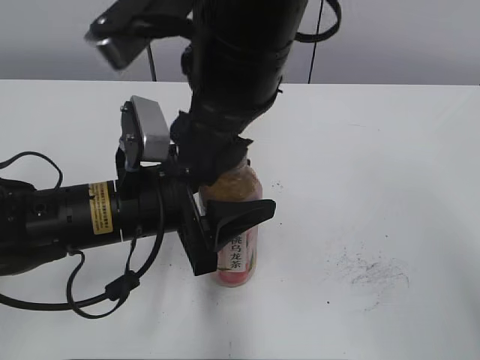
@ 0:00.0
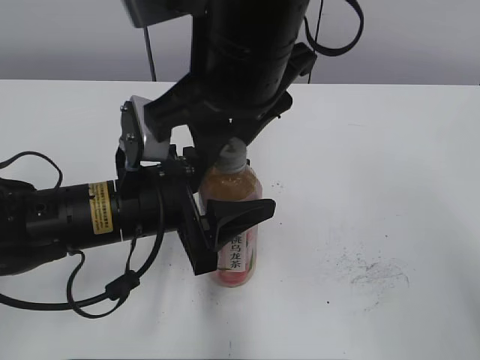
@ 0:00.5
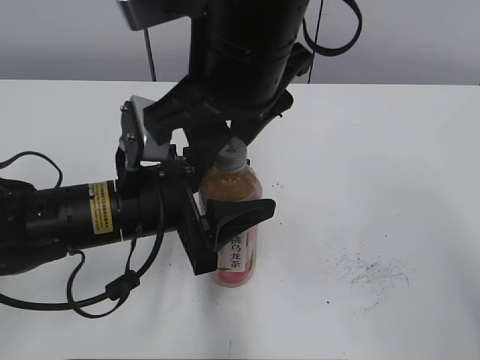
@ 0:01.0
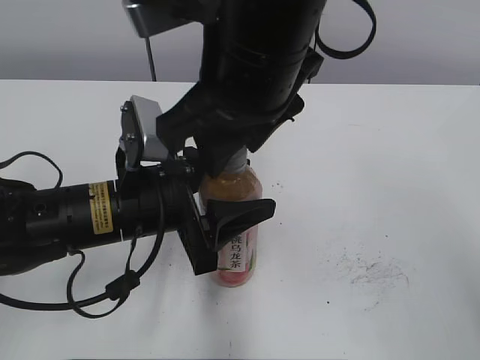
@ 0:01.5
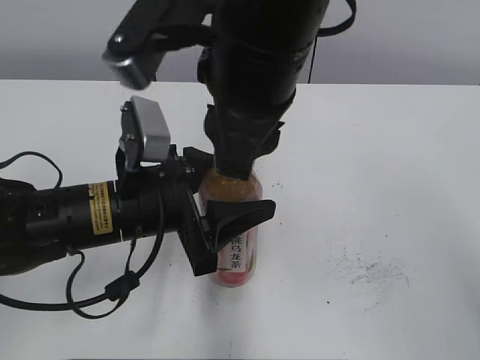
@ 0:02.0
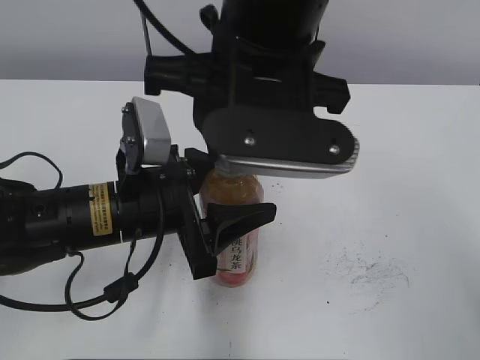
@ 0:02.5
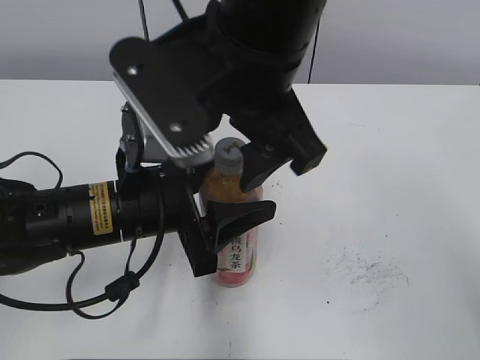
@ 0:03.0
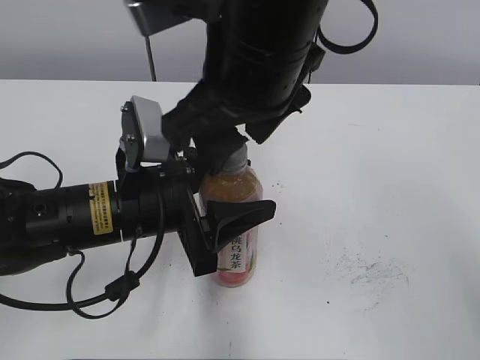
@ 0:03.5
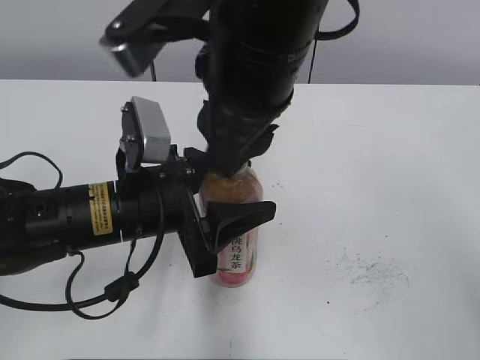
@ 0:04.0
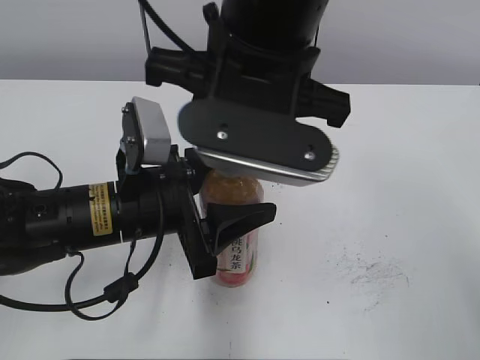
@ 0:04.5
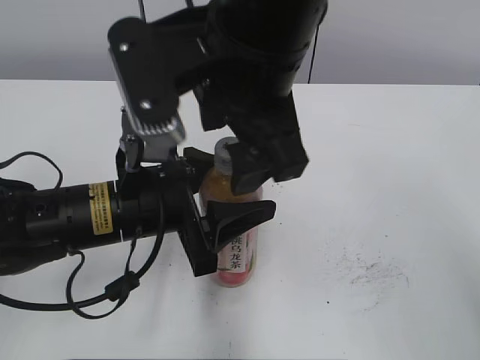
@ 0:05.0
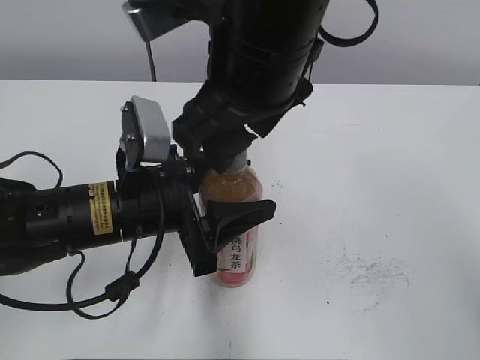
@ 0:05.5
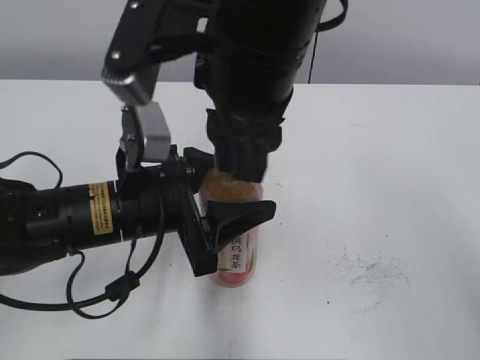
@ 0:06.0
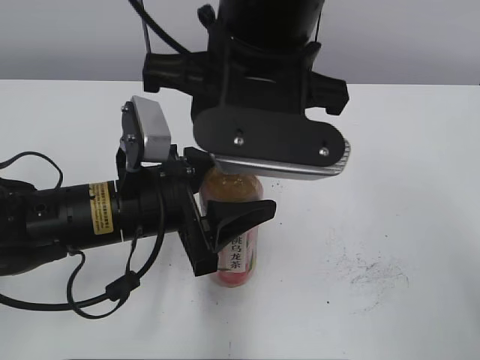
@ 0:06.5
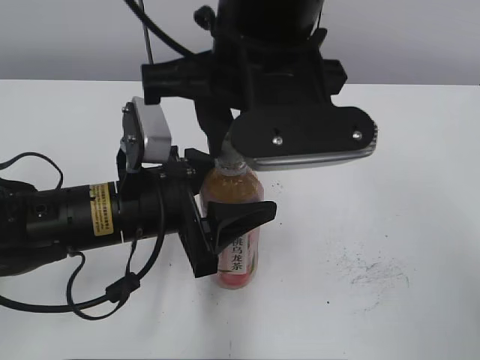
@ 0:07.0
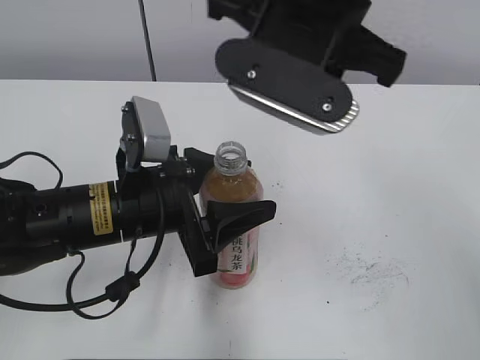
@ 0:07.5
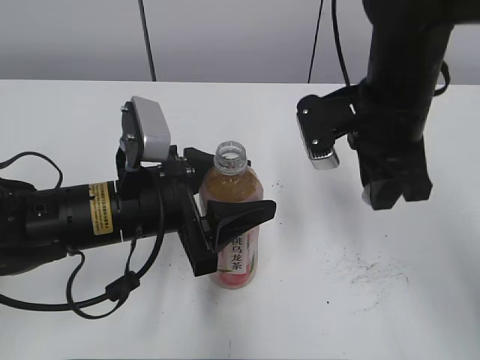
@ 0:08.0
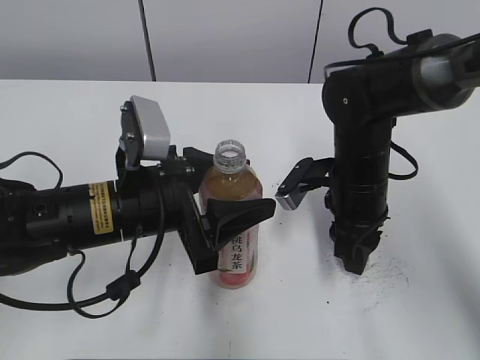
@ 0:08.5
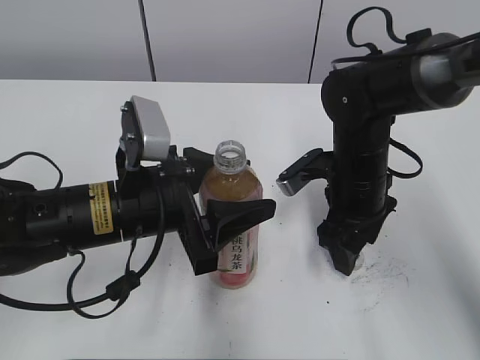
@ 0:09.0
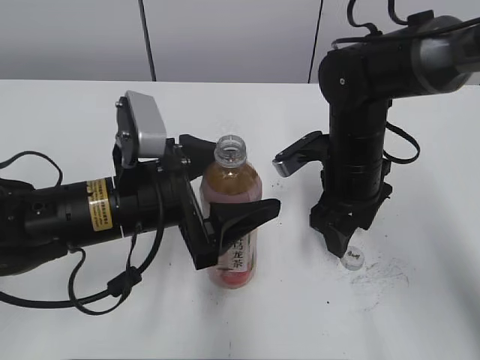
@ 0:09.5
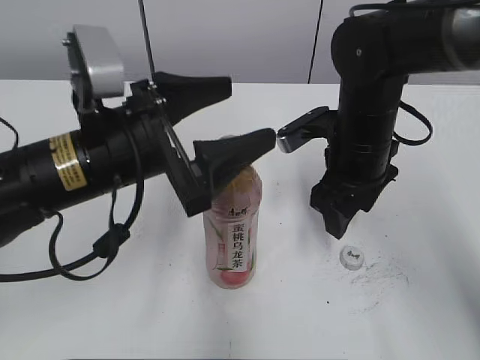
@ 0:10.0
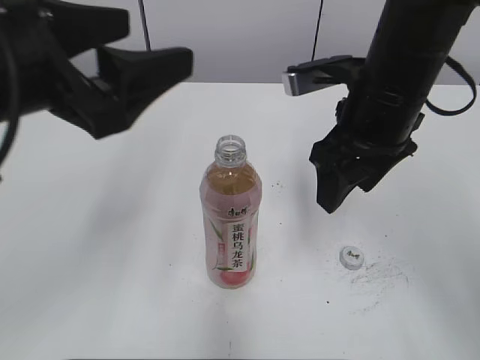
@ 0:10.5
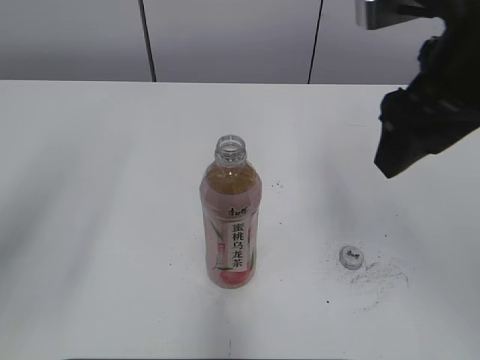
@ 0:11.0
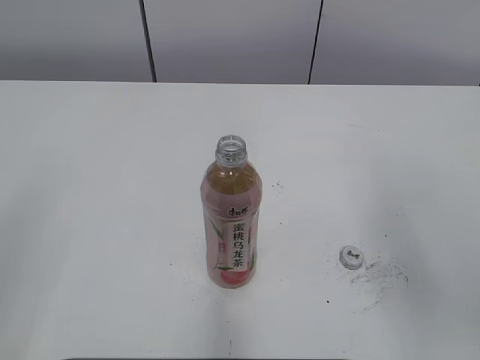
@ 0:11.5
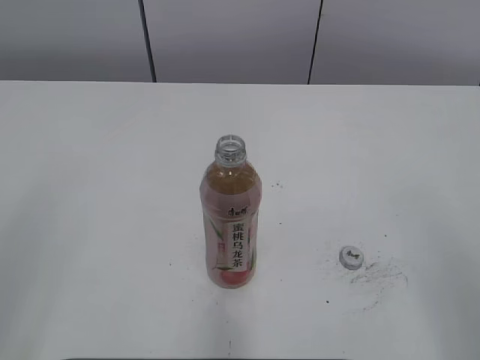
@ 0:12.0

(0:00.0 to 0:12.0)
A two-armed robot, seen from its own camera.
Step, 0:07.5 - 0:08.5: Place the bottle cap on the right.
0:00.0 - 0:02.0: The right gripper closes up.
0:02.0 - 0:04.0: The right gripper opens, then closes again.
0:04.0 - 0:06.0: The right gripper opens and closes again.
0:06.0 - 0:08.0: The right gripper goes about 15 cm to the right, downward and forward.
0:08.0 - 0:10.0: The right gripper is displaced downward by about 5 cm, and opens up. The left gripper shifts some 5 cm upward, and opens up.
0:10.0 - 0:12.0: The right gripper is displaced backward, to the right and upward by about 35 cm; the left gripper travels backward, to the left and upward by approximately 30 cm.

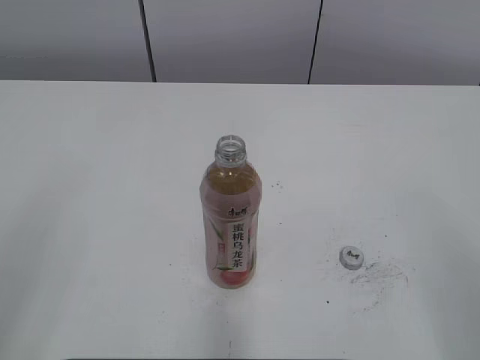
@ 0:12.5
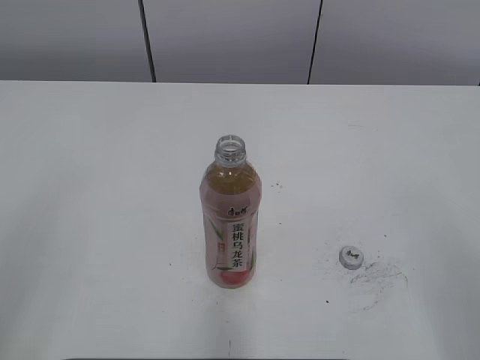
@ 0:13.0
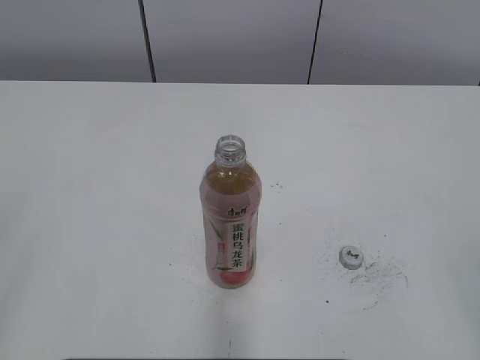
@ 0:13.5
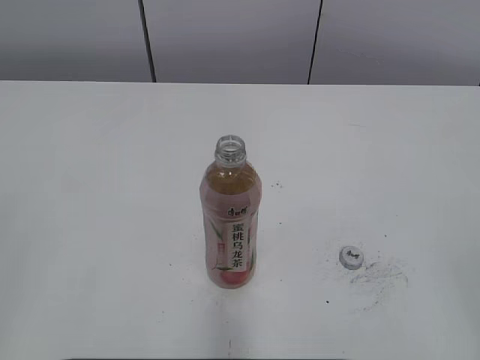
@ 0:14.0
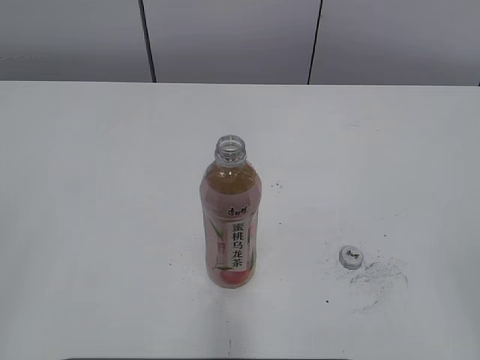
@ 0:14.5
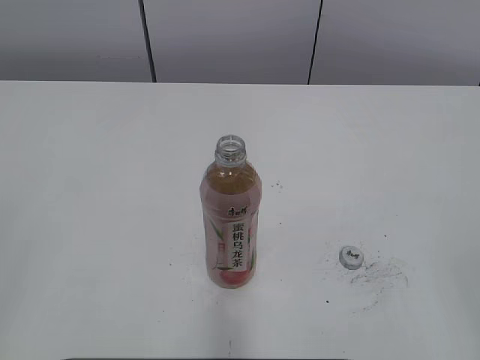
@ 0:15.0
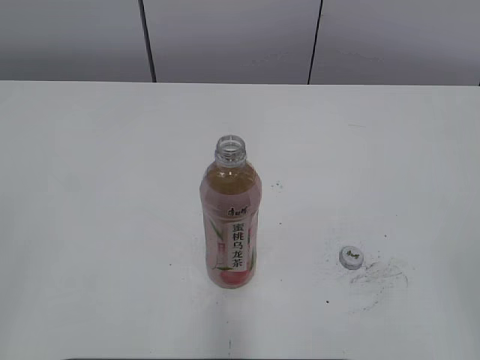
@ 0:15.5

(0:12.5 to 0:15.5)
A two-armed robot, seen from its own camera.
0:14.0 - 0:15.5: Both grippers stay about where they are.

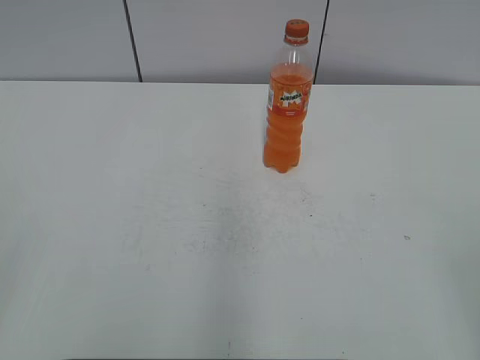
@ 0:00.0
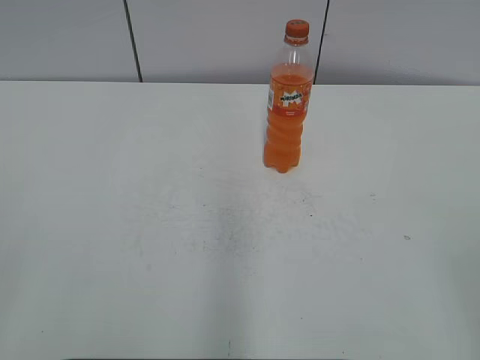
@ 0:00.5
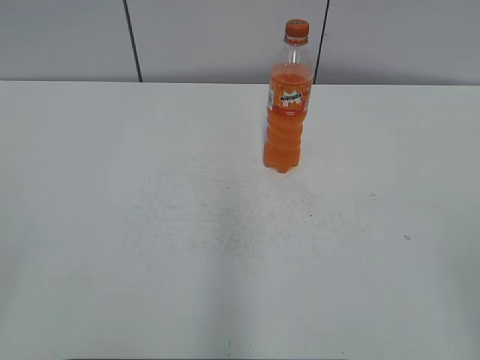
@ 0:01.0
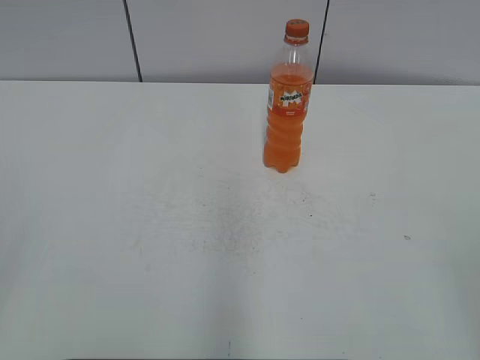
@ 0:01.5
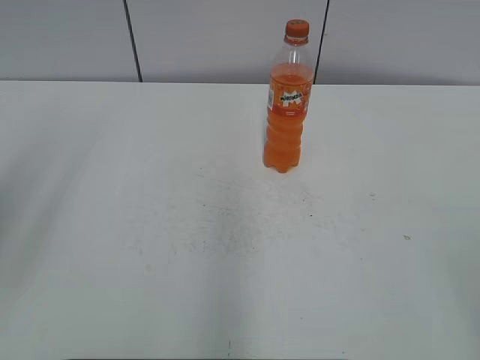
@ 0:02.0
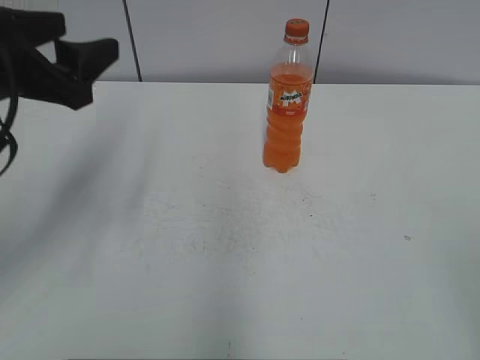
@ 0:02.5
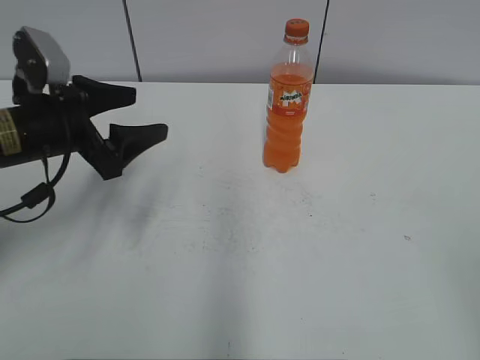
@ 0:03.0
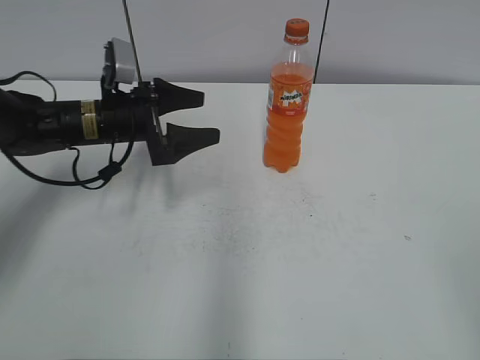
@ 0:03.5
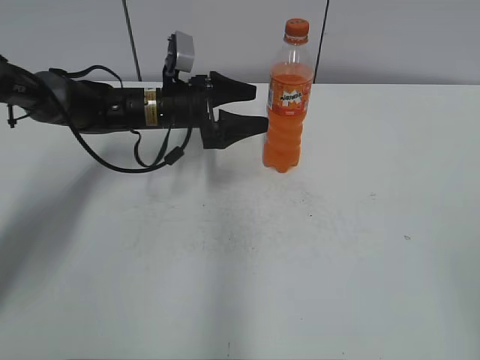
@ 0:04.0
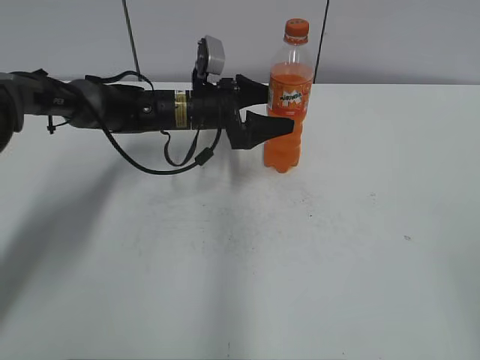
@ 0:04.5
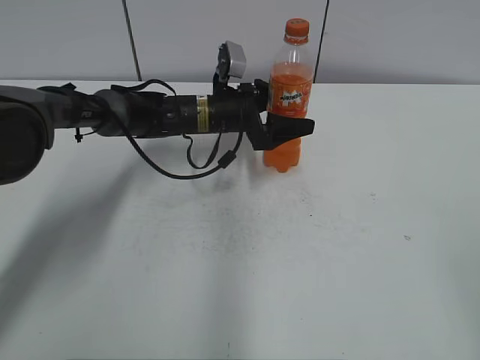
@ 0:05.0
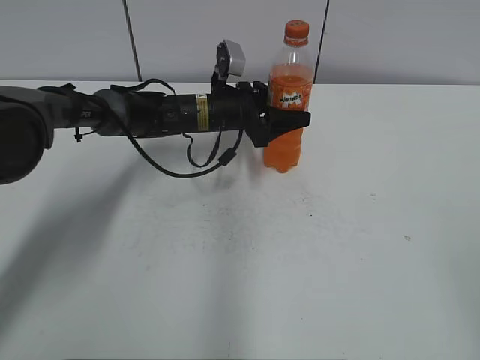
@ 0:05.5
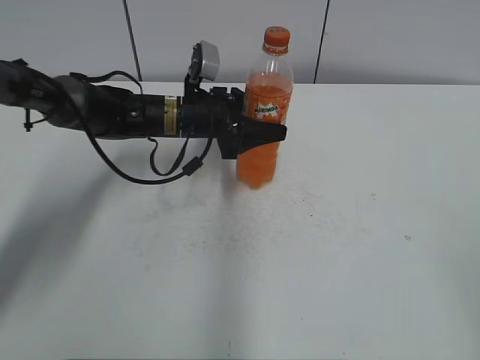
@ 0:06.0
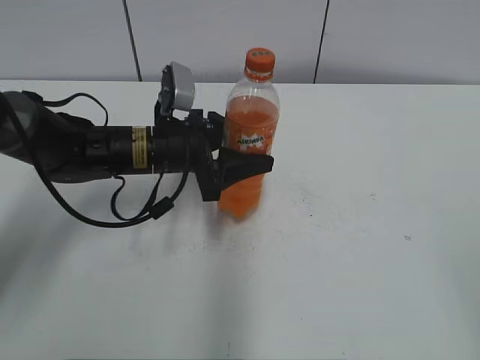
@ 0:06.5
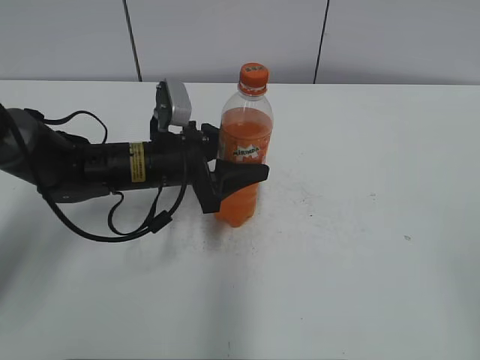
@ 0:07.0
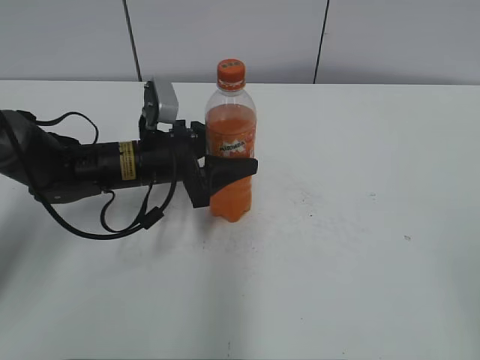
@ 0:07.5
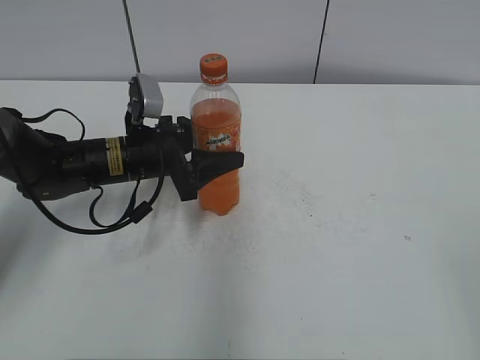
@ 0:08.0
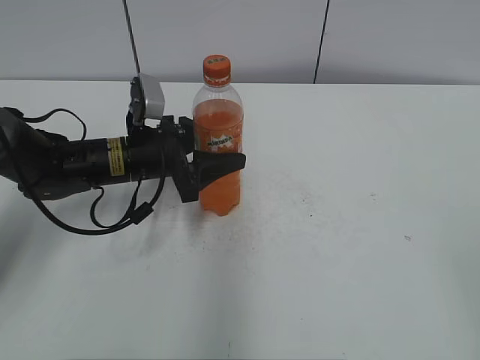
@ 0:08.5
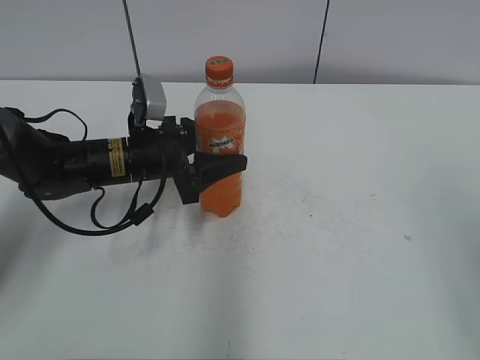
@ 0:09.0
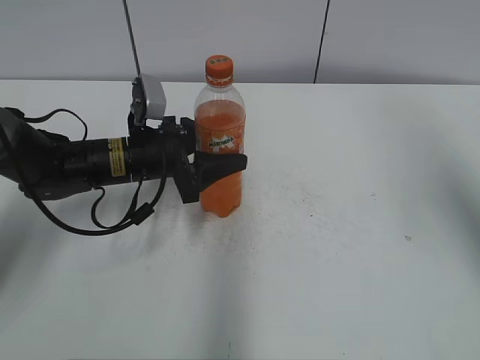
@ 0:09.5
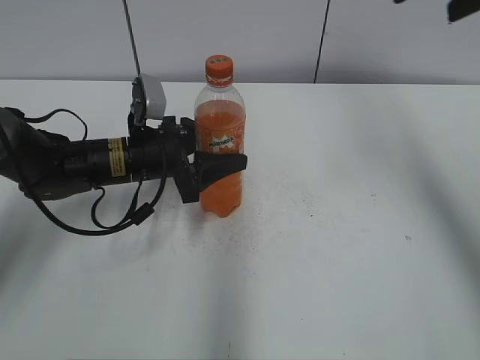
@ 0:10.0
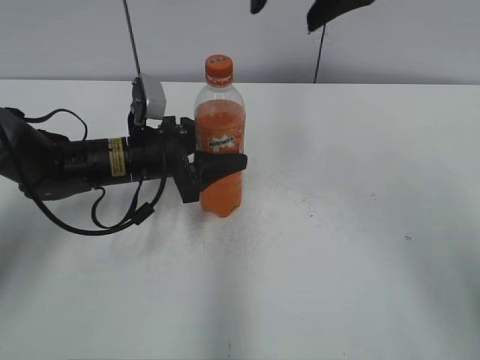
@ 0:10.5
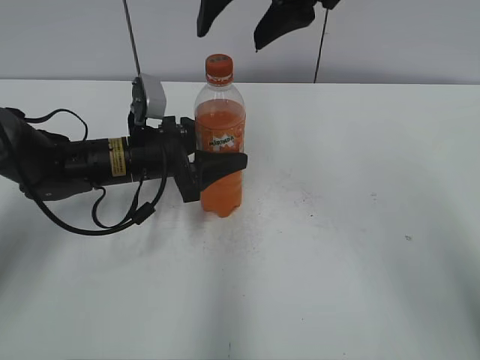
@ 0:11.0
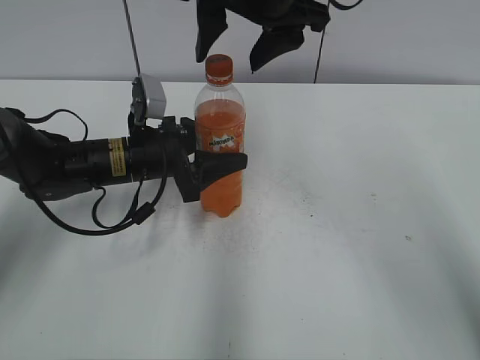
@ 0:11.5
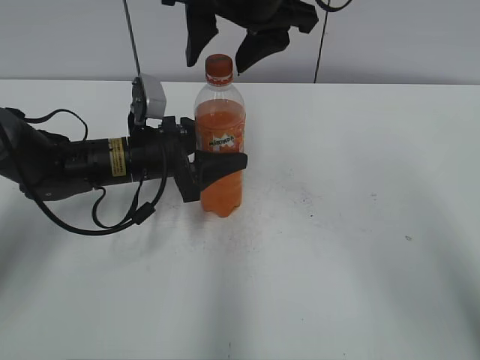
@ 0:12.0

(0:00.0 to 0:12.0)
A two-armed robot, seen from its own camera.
Step, 0:00.0 - 0:05.0: Grab the Mirinda with the left hand.
Step, 0:05.5 - 0:08.5: Move the Mirinda from right to left.
0:02.0 - 0:04.0: The left gripper travels forward, downward and to the right by about 50 cm, and opens.
0:04.0 - 0:06.0: The left gripper closes its fingers.
0:06.0 - 0:08.0: The left gripper travels backward and to the left by approximately 10 cm.
0:08.0 - 0:10.0: The right gripper heads forward, covering roughly 30 cm.
0:10.0 - 0:12.0: The right gripper heads to the left, covering some 20 cm.
